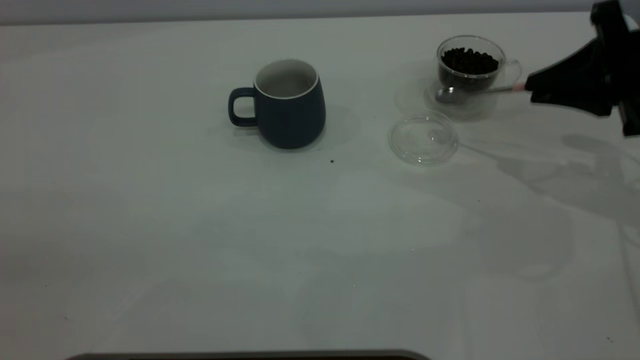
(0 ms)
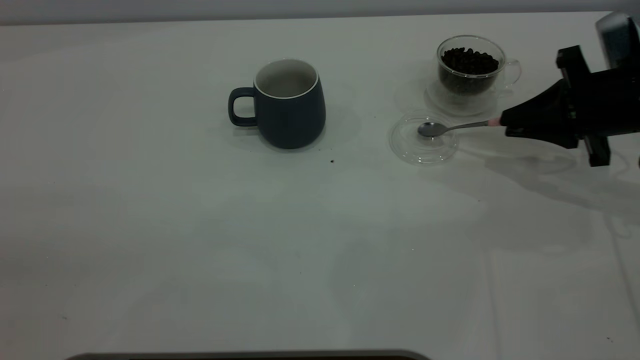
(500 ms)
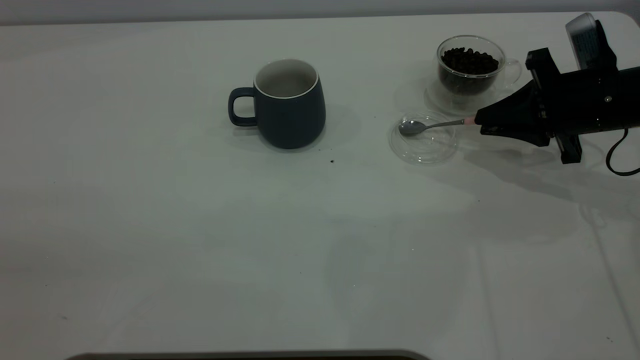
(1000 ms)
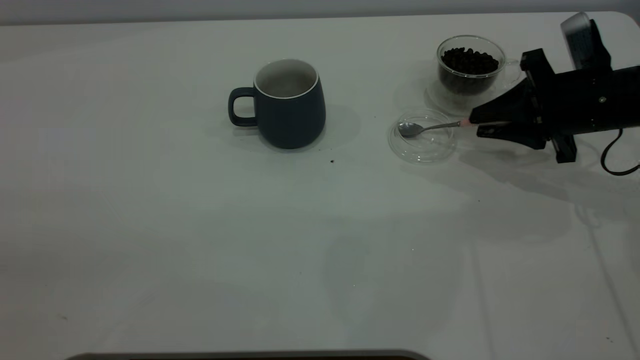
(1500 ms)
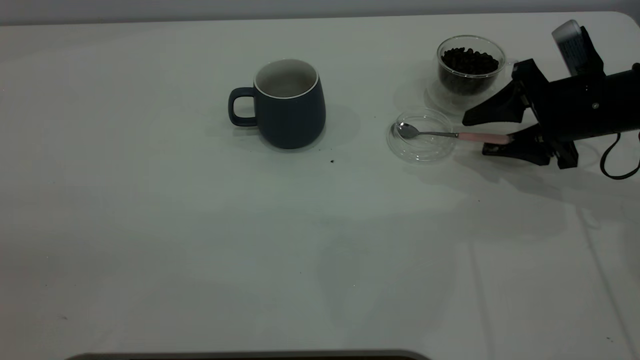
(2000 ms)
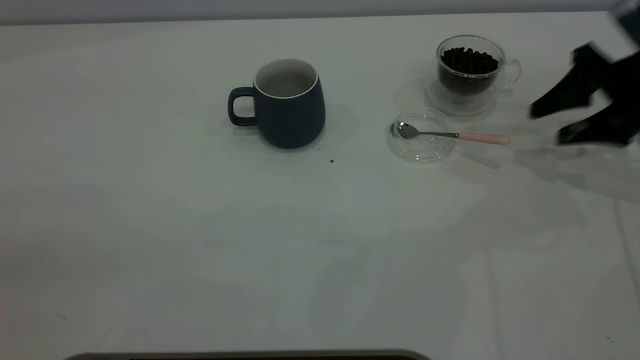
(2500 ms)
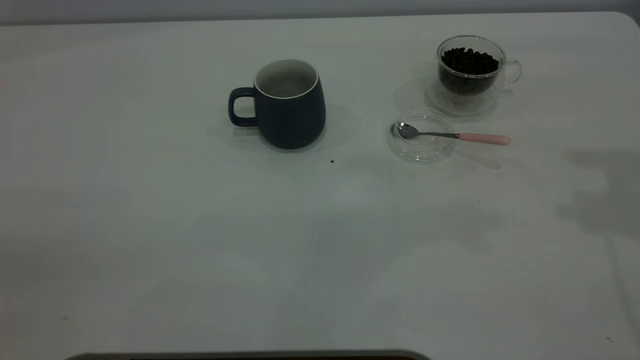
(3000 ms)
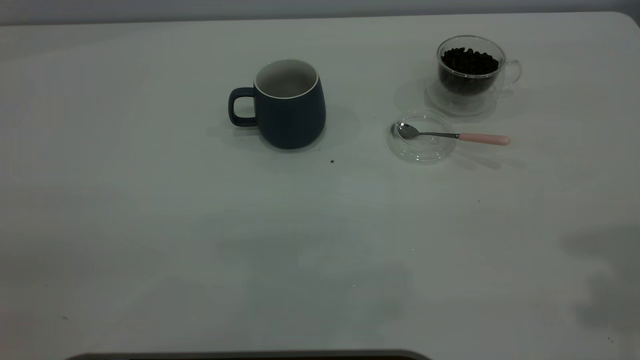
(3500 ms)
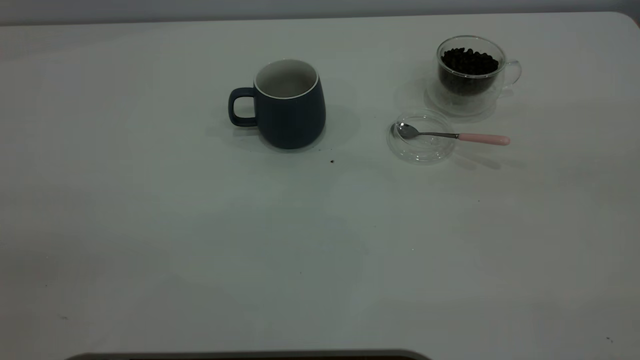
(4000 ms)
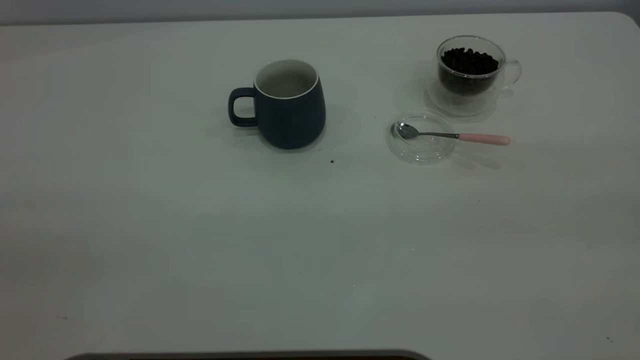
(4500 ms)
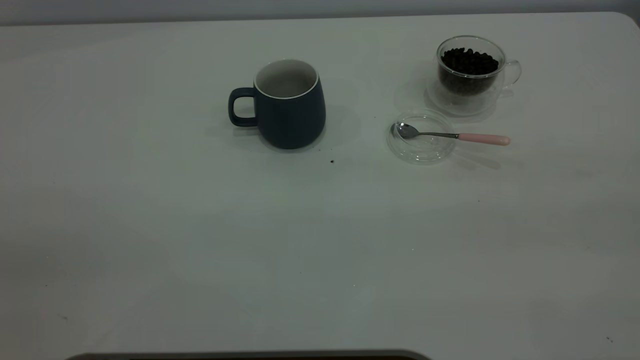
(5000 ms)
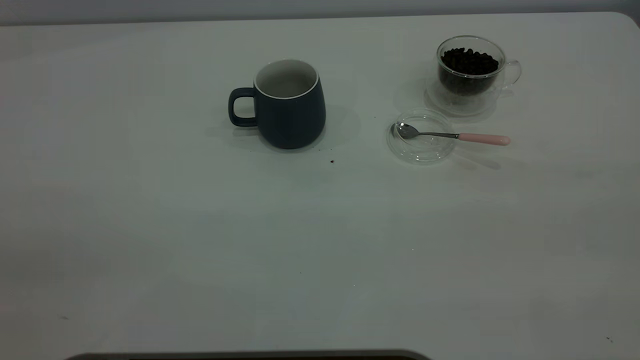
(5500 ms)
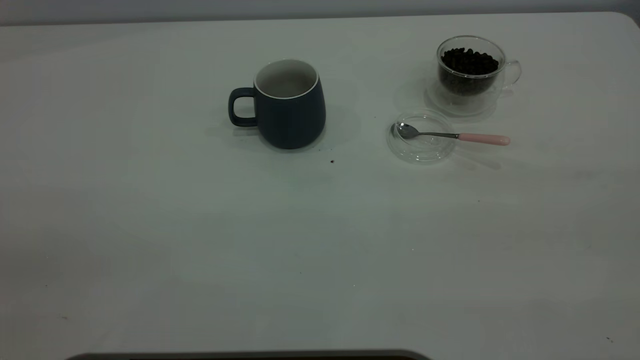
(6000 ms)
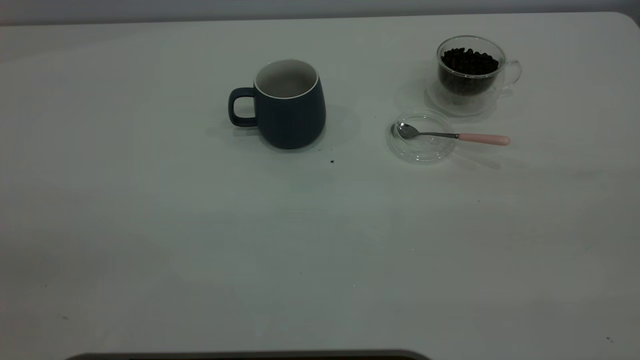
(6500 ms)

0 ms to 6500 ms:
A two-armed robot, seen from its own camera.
Task of the whole recording: the left gripper place the grey cup in the center of the table, the right gripper take the pink spoon from the cup lid and scoop out the coffee beans from the coffee cup and put them into the grey cup, the right gripper put the spoon back into the cup lid.
Step, 0 ms to 2000 ms: Place the spoon back in its original place.
0 ms to 2000 ms: The right gripper moves downward, roughly 5 cm, and opens up.
2000 ms to 4500 ms: The right gripper shifts approximately 40 cm backward and upward.

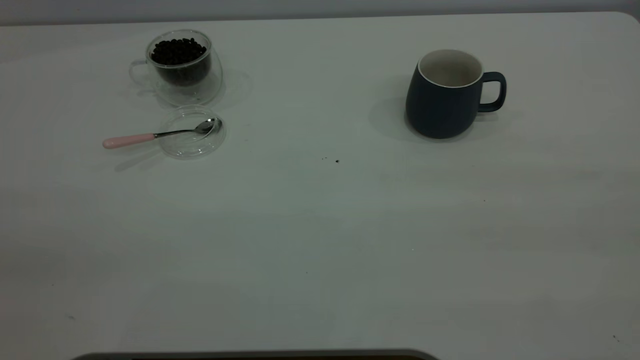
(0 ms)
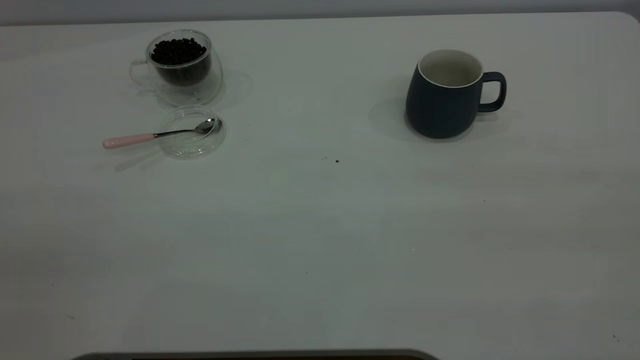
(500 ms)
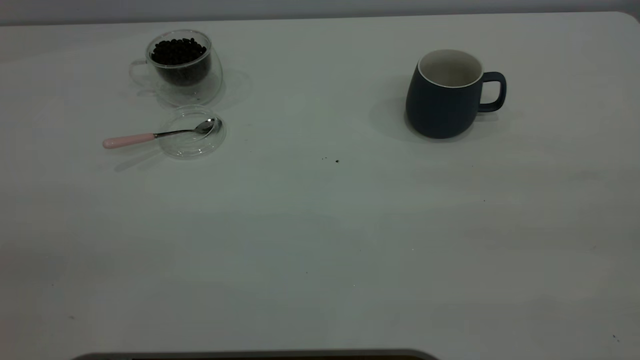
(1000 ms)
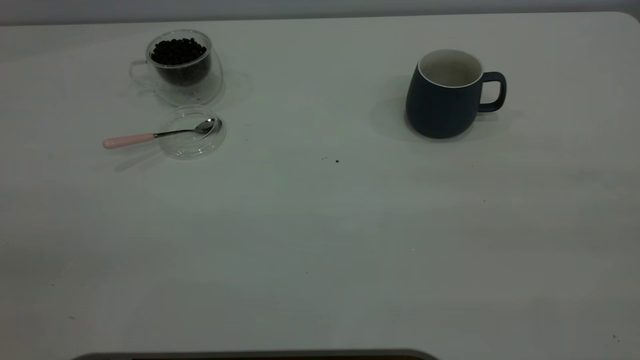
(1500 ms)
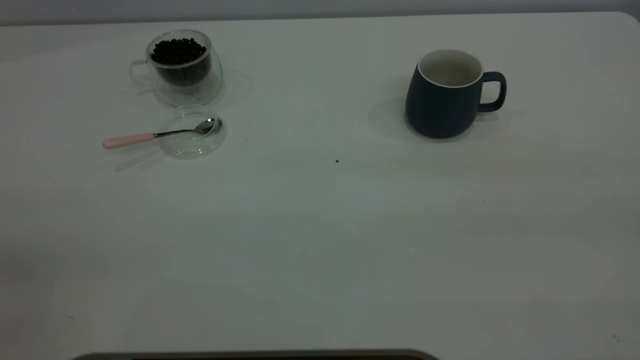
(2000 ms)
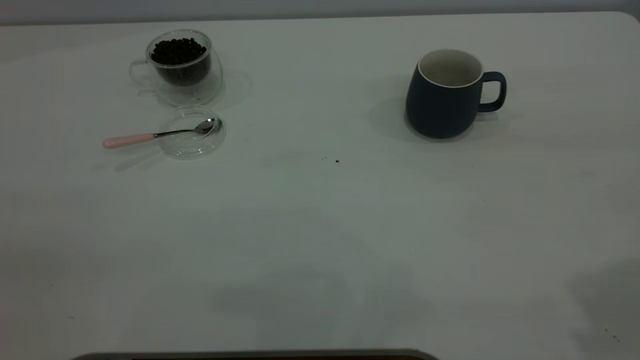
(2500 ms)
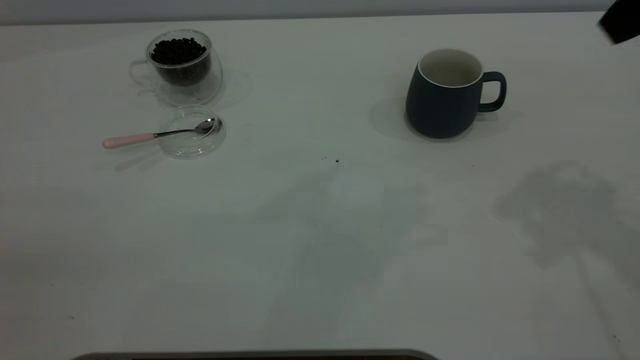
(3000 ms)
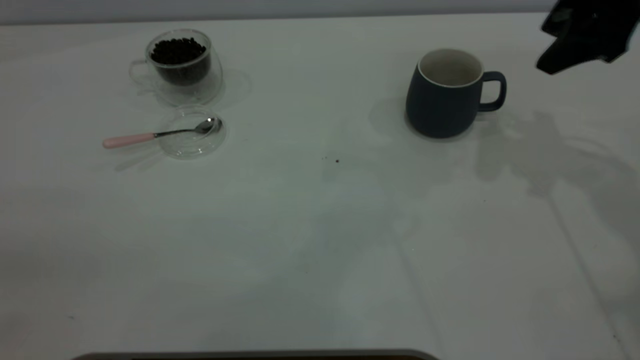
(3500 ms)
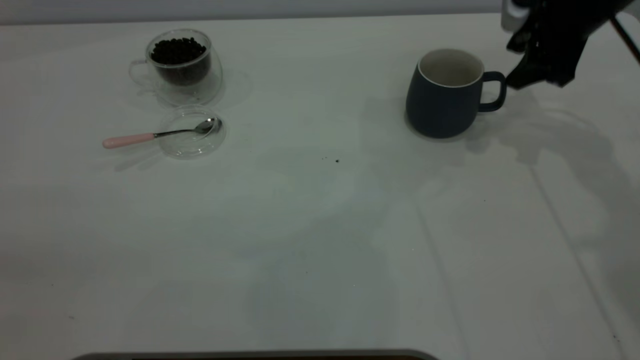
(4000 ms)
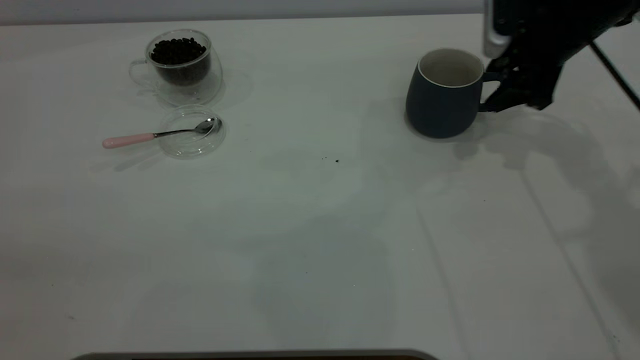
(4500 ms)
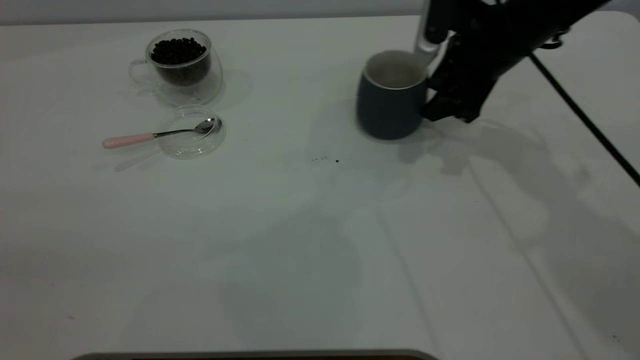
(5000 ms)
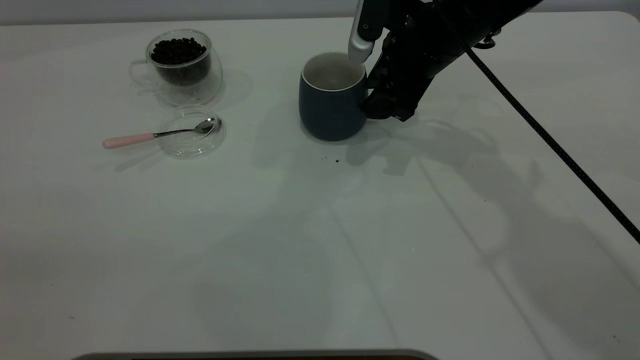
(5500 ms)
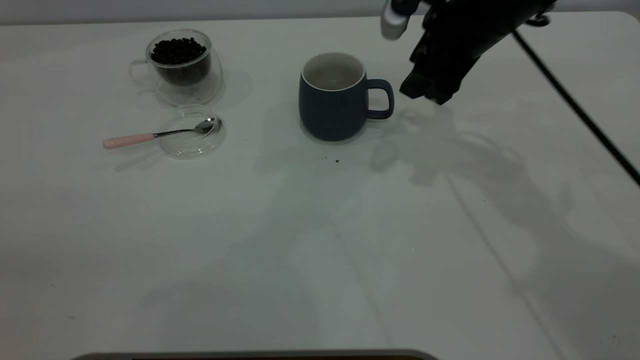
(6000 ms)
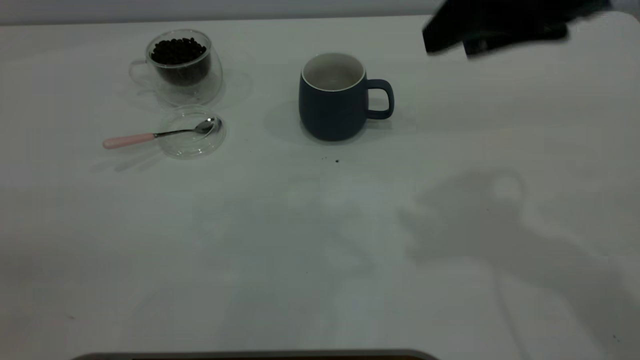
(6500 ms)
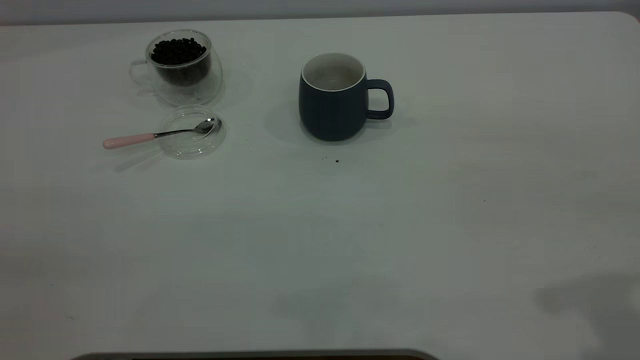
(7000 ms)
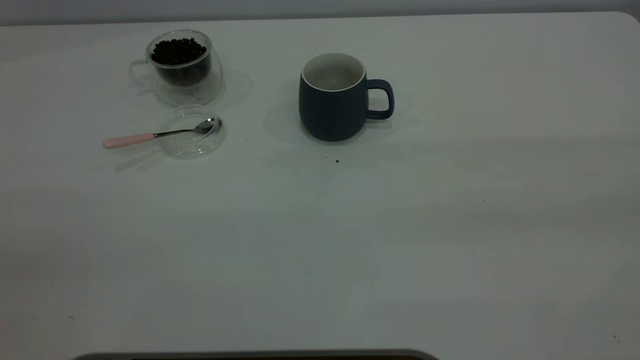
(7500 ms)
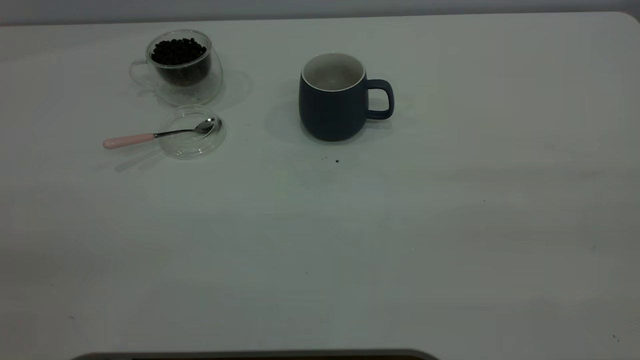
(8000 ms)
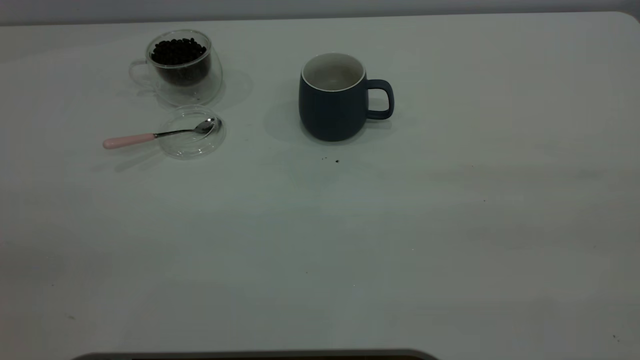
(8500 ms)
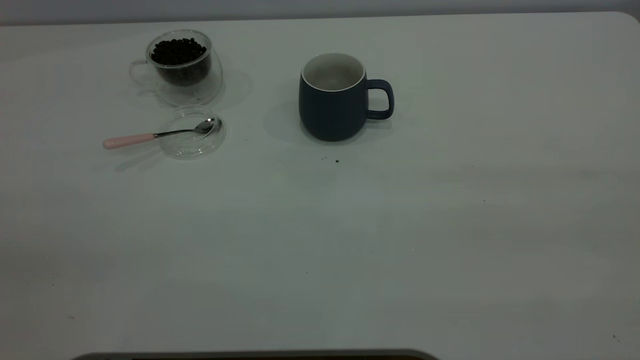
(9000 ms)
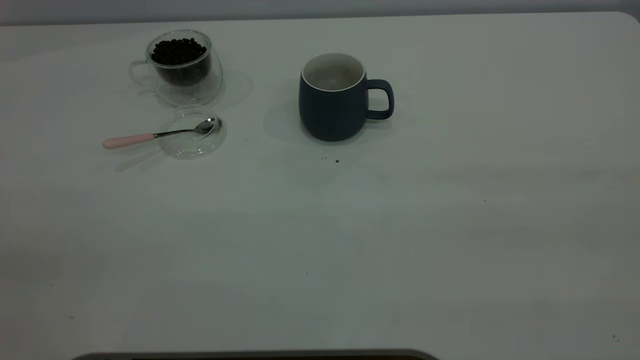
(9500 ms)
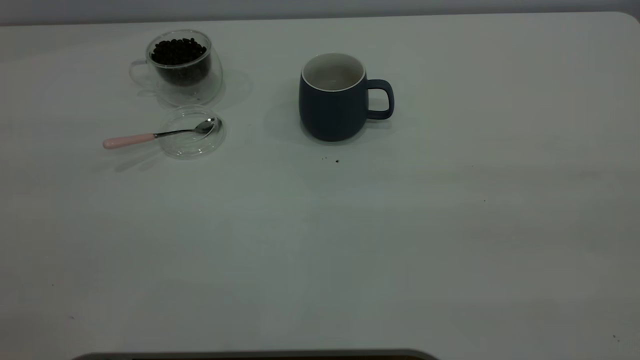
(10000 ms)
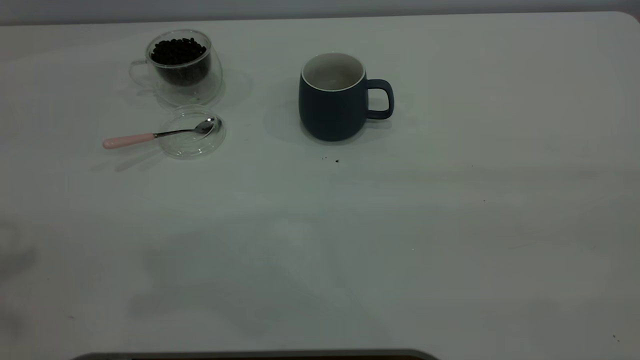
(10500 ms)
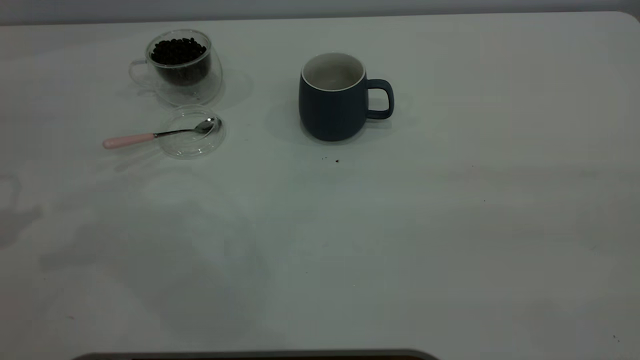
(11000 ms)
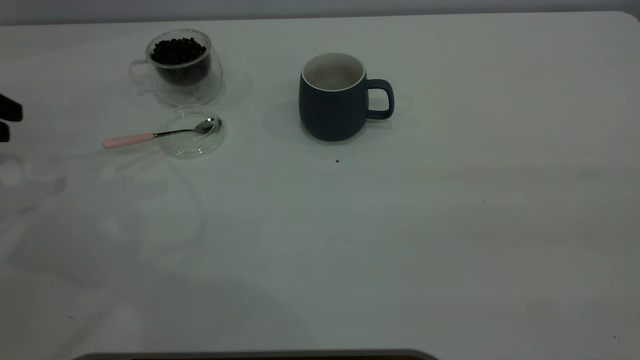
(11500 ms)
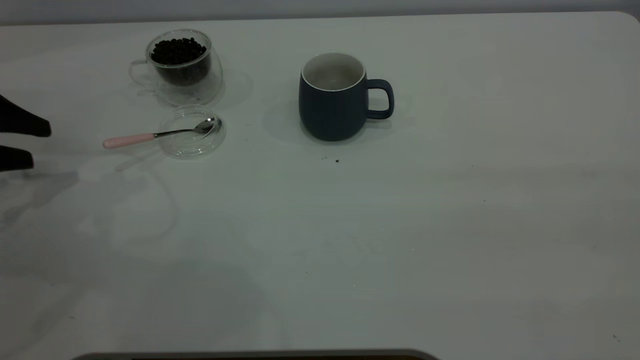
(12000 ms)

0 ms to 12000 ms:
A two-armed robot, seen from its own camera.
Task of the whole recording: the right gripper place the grey cup in the center of the table, the left gripper take the pink spoon from the cup lid and scoop out the coffee beans from the coffee cup and put them into the grey cup, the left gripper put the spoon back into the cup lid.
Step, 0 ms to 5500 ms: Move the cup to the center of view.
2000 ms to 4000 ms: The right gripper moves forward and downward, some 50 cm.
4000 ms to 6000 ms: The right gripper moves to the left, approximately 10 cm, and closes up.
6000 ms to 8000 ms: The right gripper heads backward and upward, covering about 40 cm.
10000 ms to 12000 ms: The left gripper is displaced downward and forward by some 40 cm, and opens up.

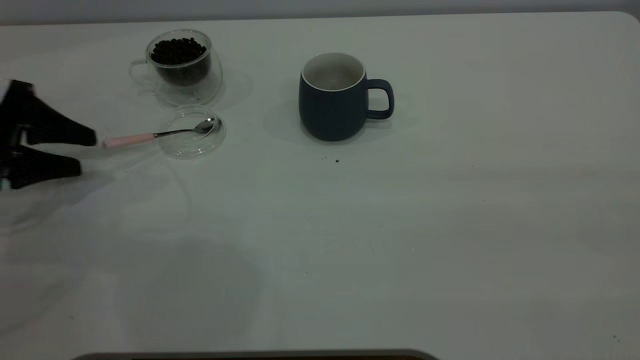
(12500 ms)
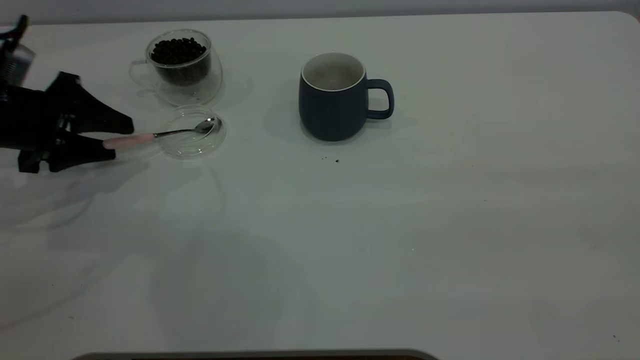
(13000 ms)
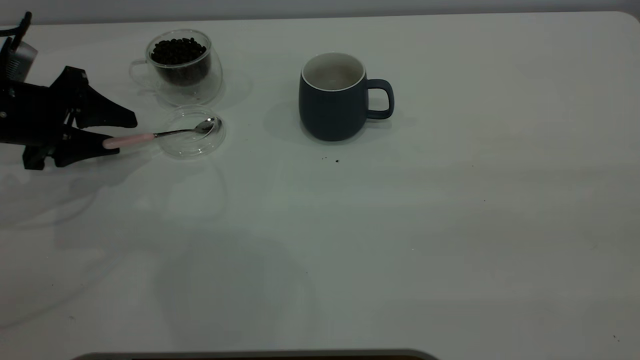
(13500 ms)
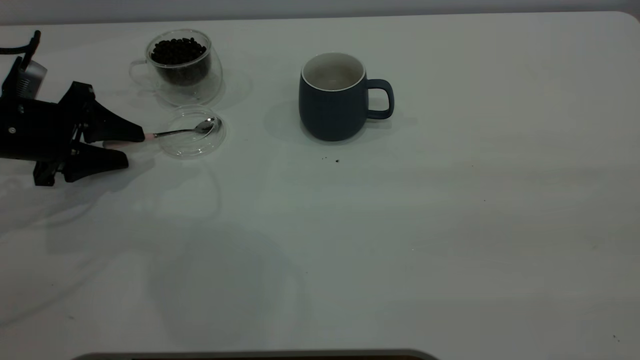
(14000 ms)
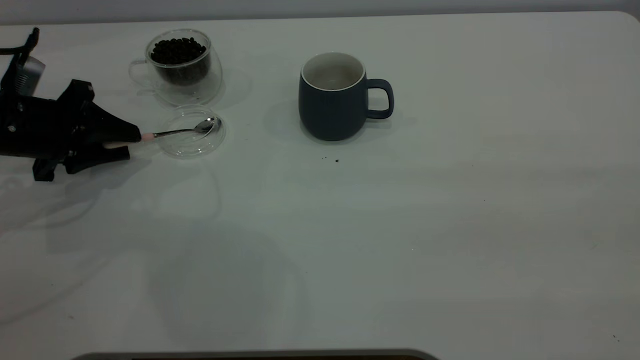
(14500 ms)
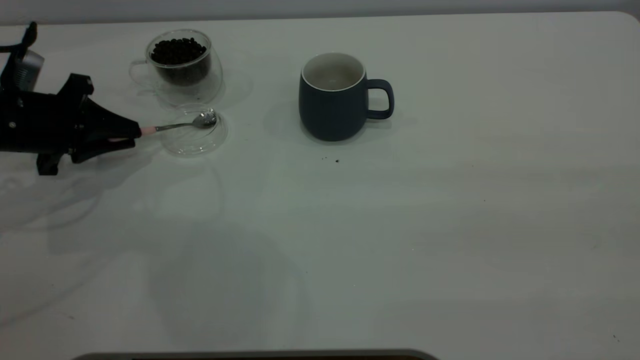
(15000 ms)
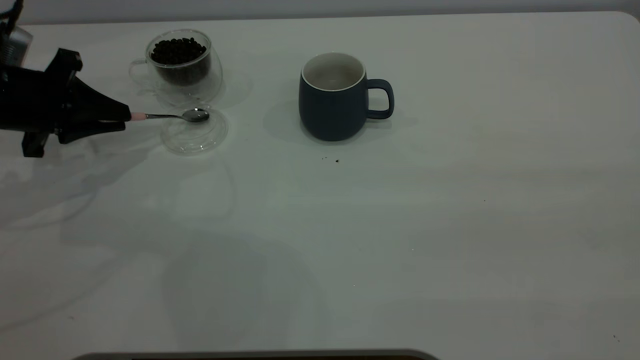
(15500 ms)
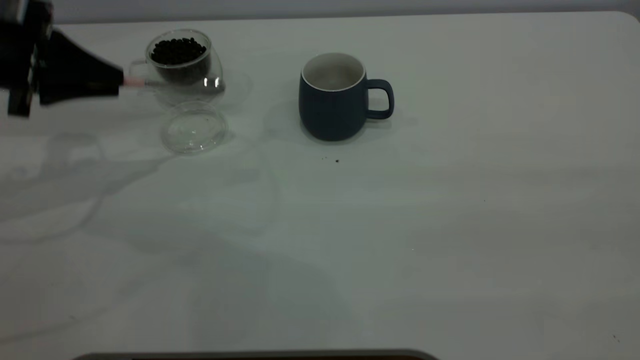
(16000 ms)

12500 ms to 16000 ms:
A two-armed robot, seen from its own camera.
Task of the whole recording: the right gripper place the grey cup in the center of the table, the left gripper take the pink spoon from the cup lid and scoop out the coffee beans from the coffee cup and put them into the grey cup, the left gripper put the spoon back into the cup lid.
Step, 12500 ms to 15500 ms: Pick up the spoon.
12500 ms to 14500 ms: The left gripper closes up.
14500 ms to 16000 ms: The left gripper moves upward, approximately 10 cm, and closes its fingers.
